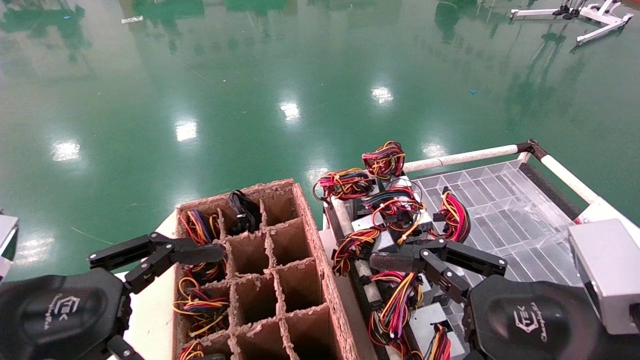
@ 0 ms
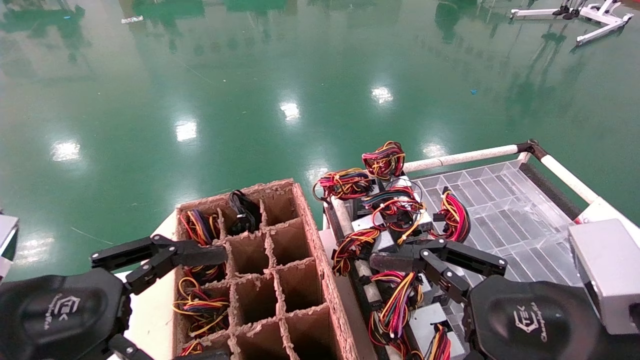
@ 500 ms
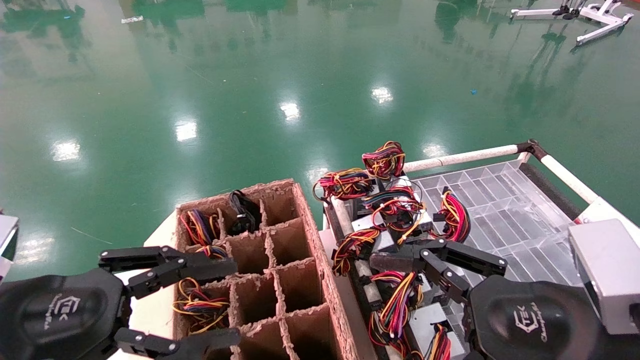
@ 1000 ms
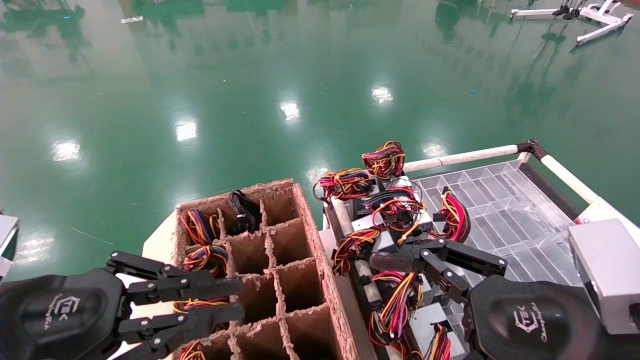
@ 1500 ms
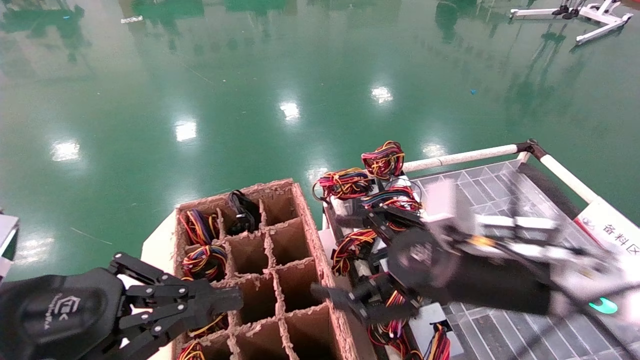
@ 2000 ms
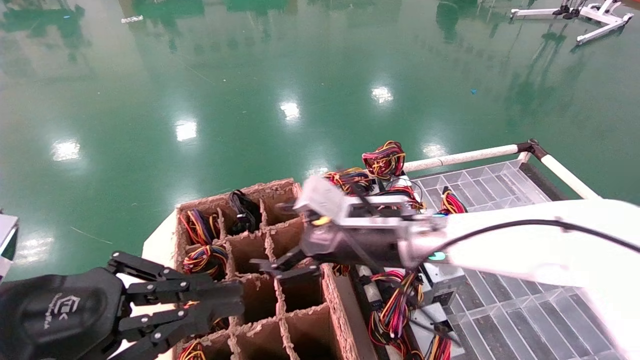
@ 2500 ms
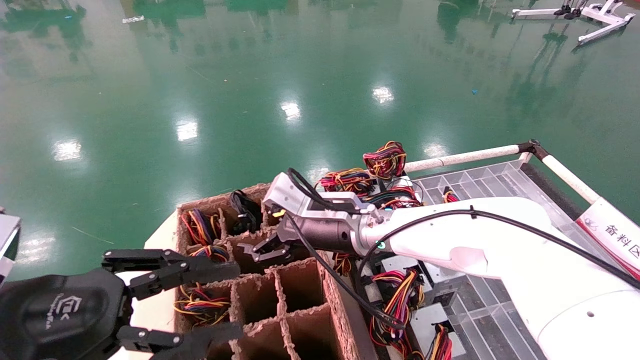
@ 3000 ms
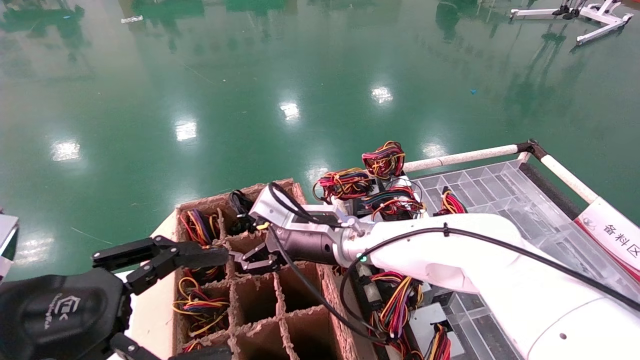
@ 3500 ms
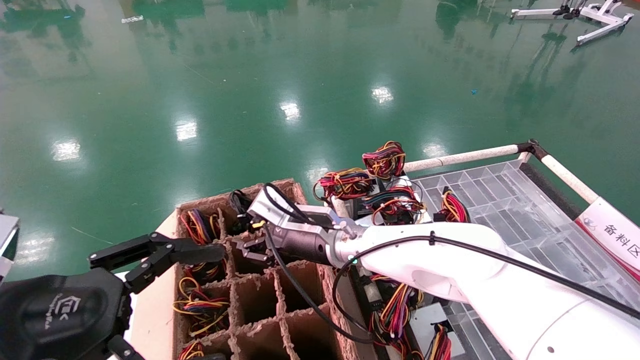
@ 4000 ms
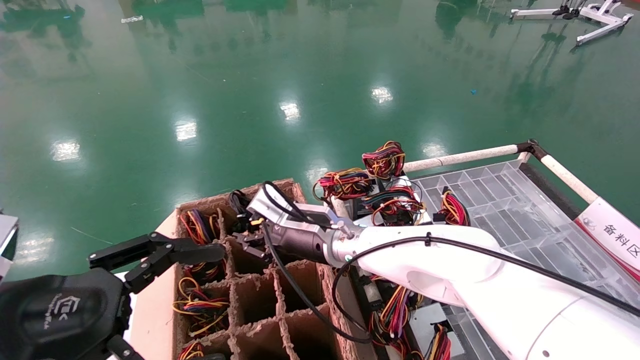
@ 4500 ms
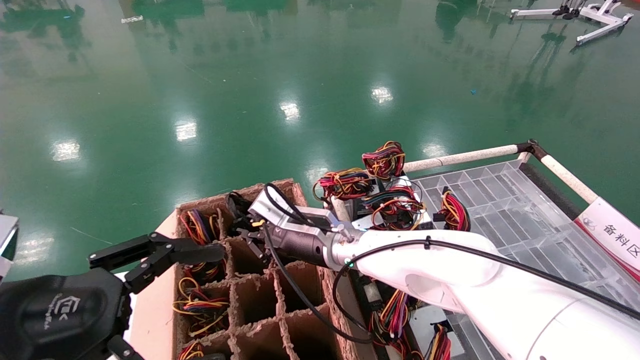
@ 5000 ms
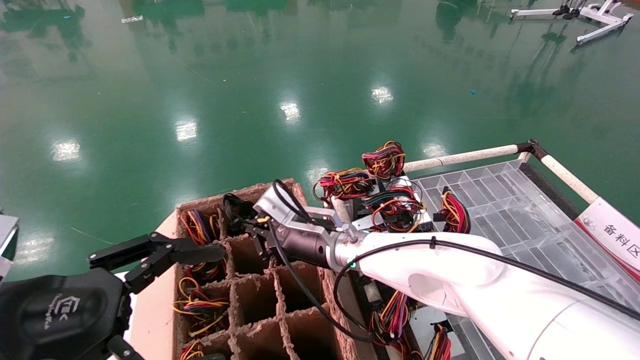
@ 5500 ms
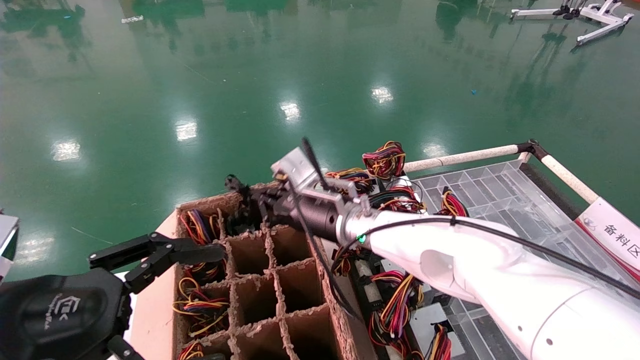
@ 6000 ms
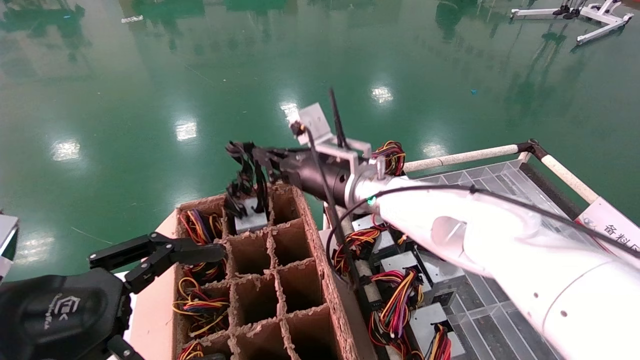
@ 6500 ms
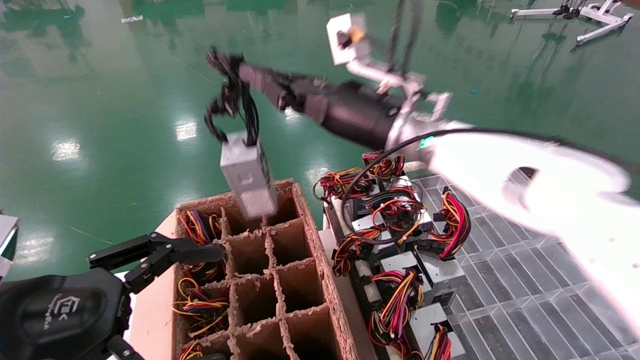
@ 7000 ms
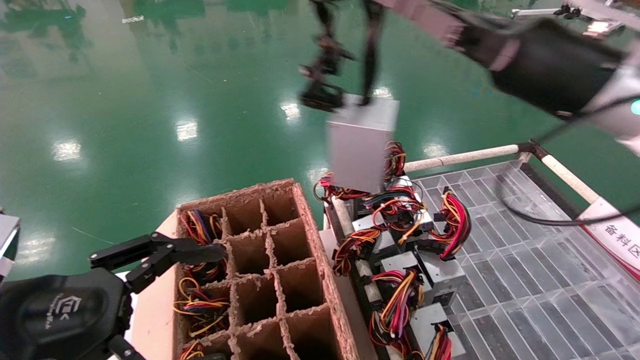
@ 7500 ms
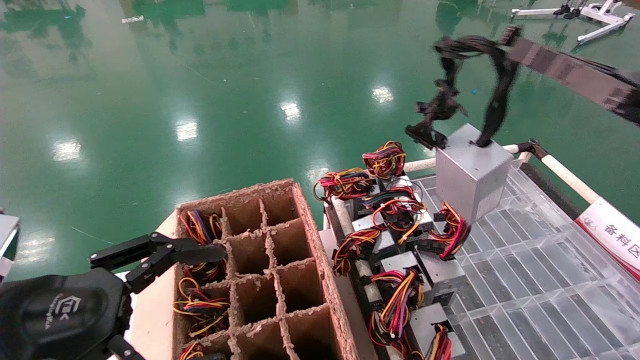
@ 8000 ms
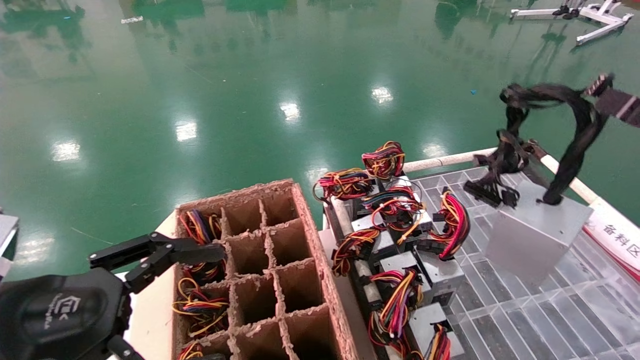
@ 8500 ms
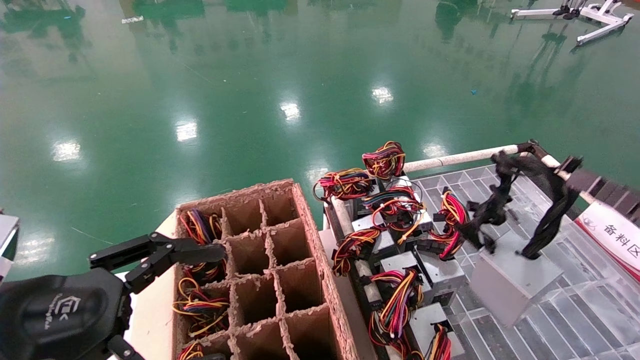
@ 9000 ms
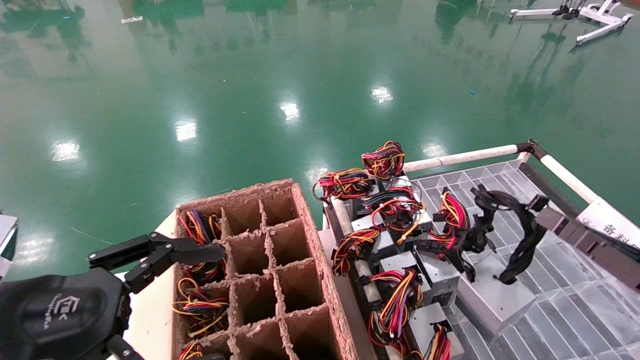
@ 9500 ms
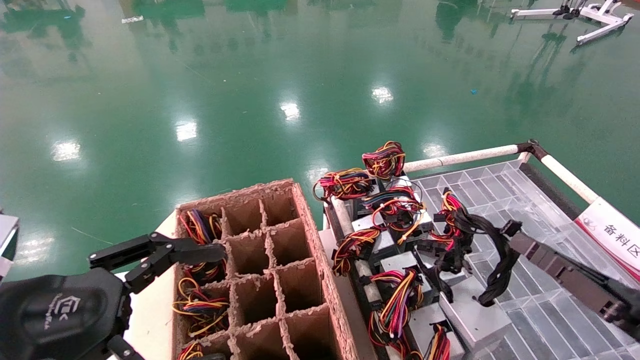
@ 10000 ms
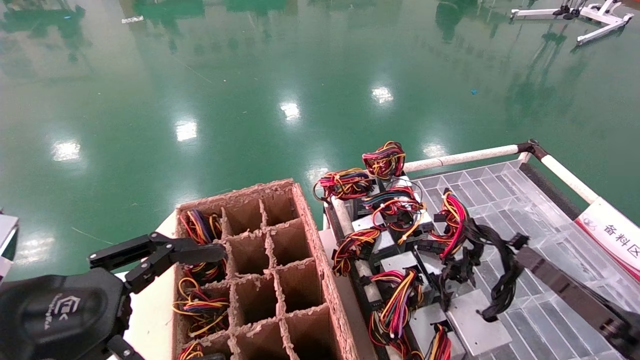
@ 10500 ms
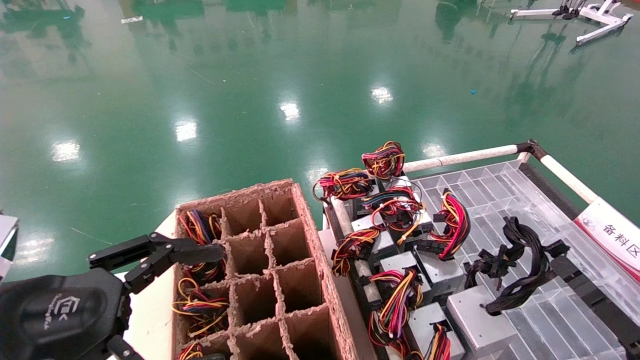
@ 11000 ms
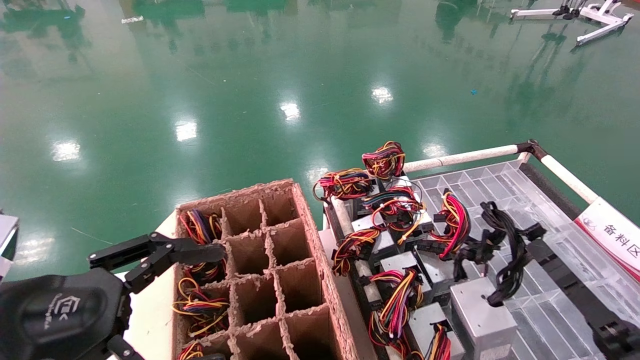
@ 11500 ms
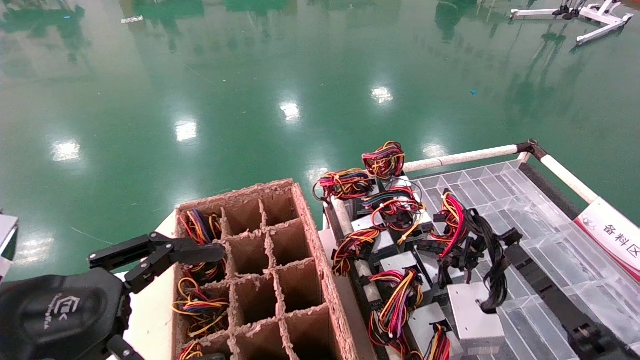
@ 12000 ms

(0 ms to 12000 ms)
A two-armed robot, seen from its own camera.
Step, 2500 ms - 5500 ms: Grab and lift the power supply from the large box.
0 ms - 2000 ms: The left gripper closes its fingers. The right gripper goes about 10 cm forward and to the left.
2000 ms - 4000 ms: The left gripper opens its fingers. Meanwhile the right gripper travels to the left and forward by some 25 cm.
4000 ms - 6000 ms: The right gripper closes up.
6000 ms - 8000 ms: The right gripper is displaced to the right and backward by some 40 cm.
8000 ms - 10000 ms: The right gripper goes approximately 20 cm downward.
10000 ms - 12000 ms: The right gripper shifts about 10 cm downward.

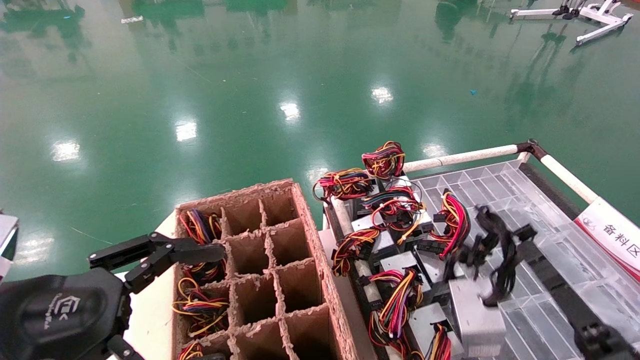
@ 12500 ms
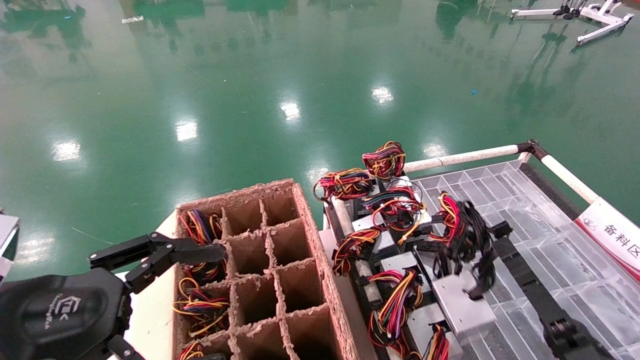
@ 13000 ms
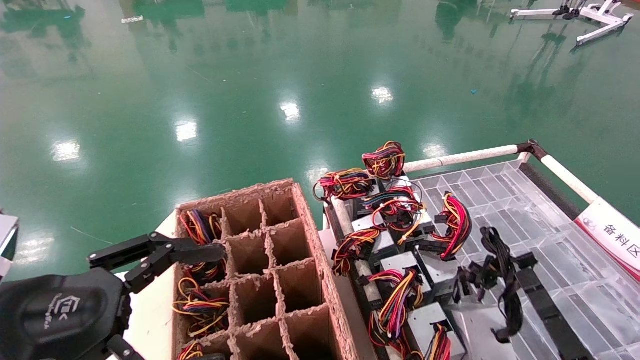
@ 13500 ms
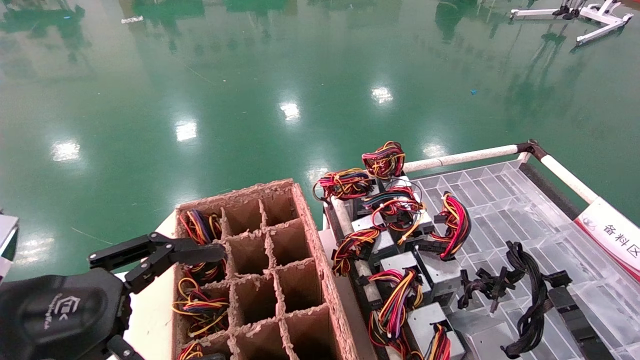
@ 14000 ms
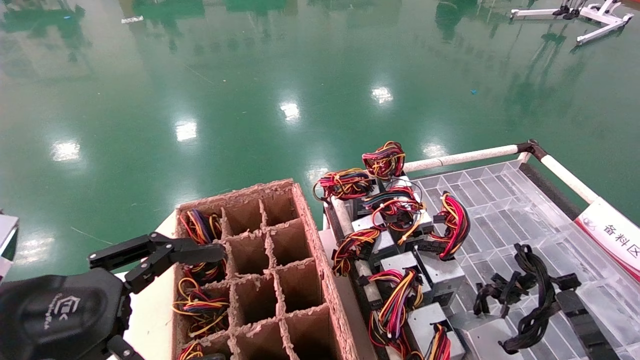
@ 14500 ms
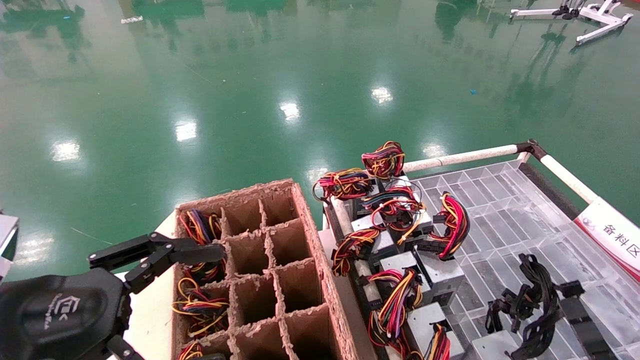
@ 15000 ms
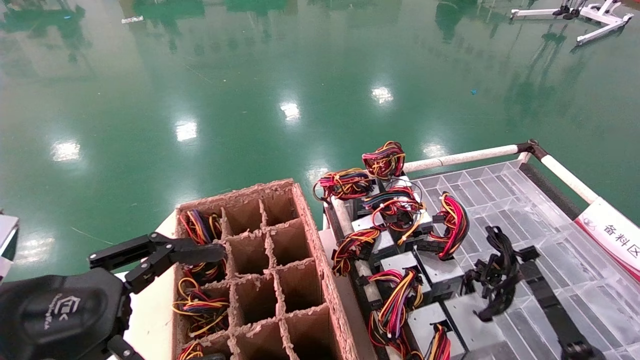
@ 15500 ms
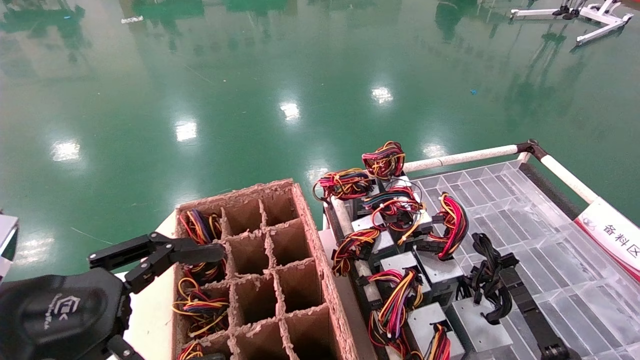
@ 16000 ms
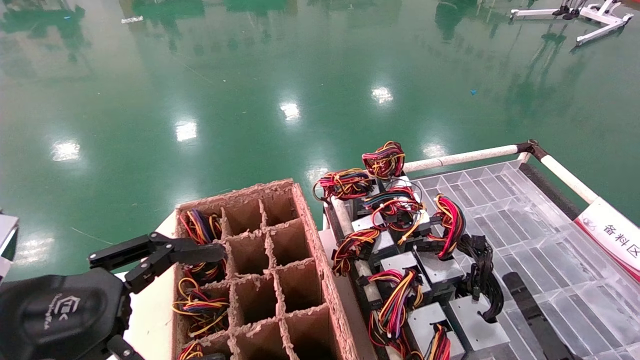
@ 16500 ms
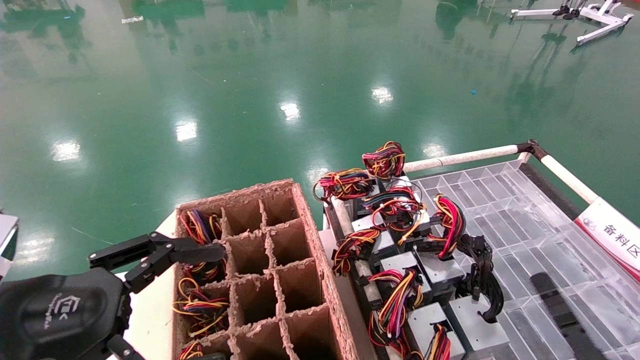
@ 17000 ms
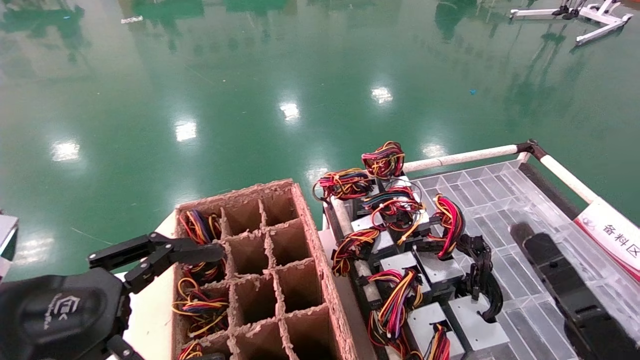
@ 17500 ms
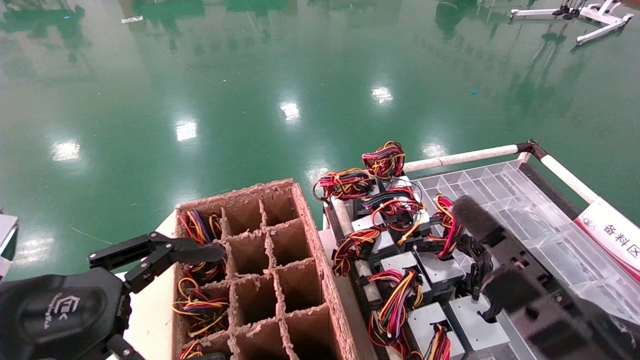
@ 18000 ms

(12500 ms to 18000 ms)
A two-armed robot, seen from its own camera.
Step, 12500 ms - 16000 ms: Place the power supply on the operating table.
12500 ms - 14500 ms: The right gripper goes about 5 cm downward.
14500 ms - 16000 ms: The right gripper travels forward by about 5 cm.
16000 ms - 18000 ms: The right gripper is displaced upward by approximately 15 cm, and opens its fingers.
